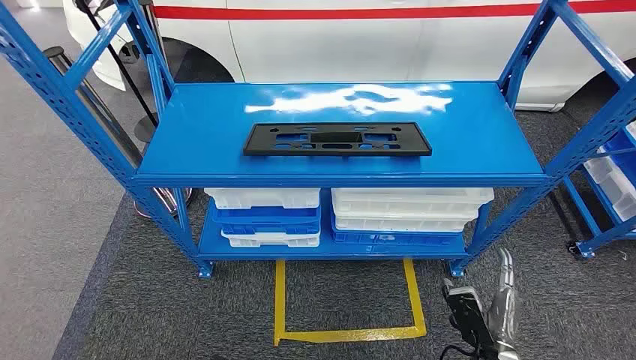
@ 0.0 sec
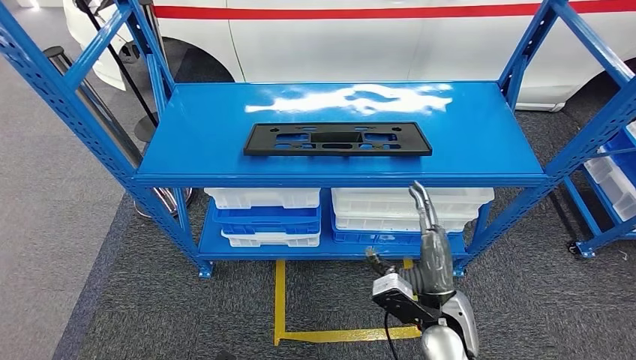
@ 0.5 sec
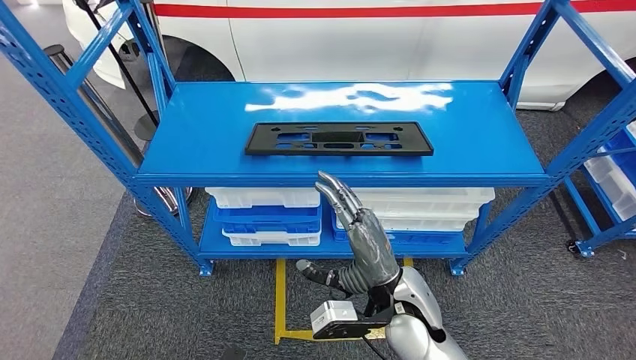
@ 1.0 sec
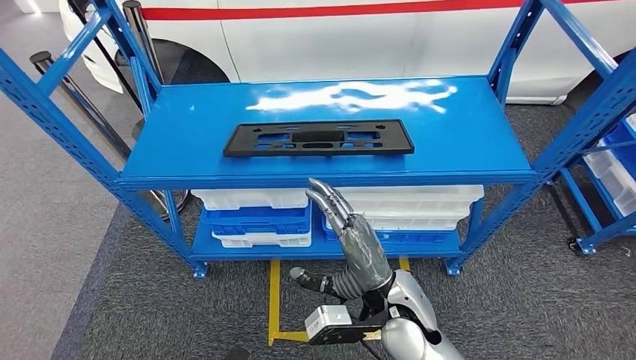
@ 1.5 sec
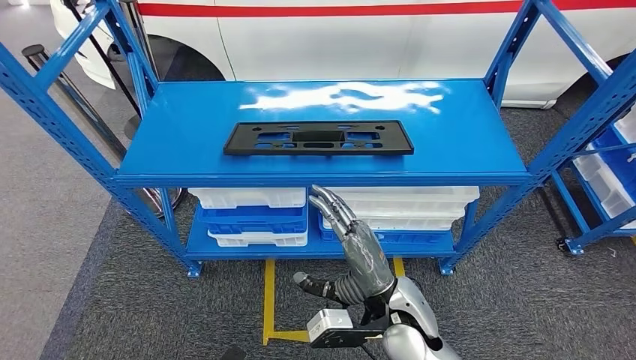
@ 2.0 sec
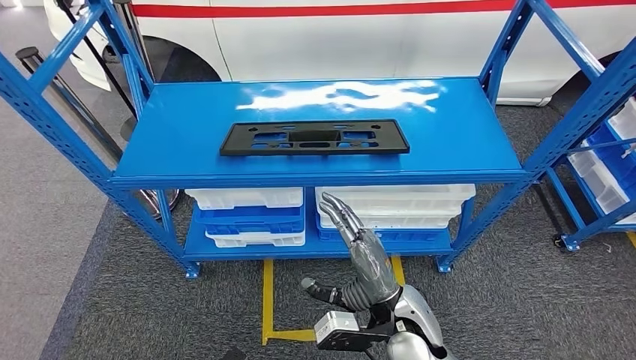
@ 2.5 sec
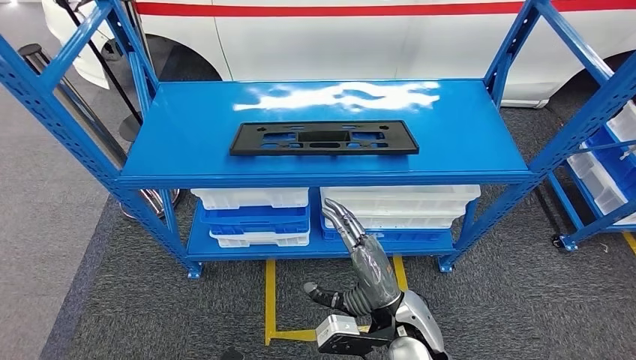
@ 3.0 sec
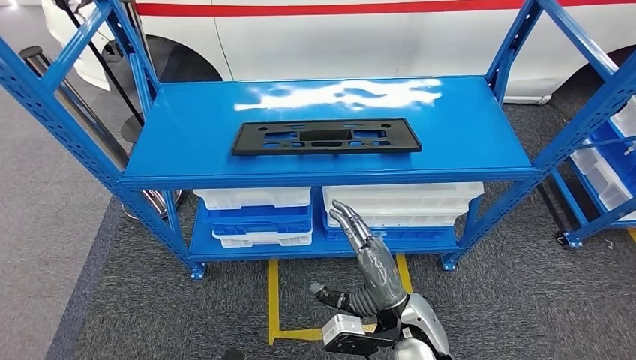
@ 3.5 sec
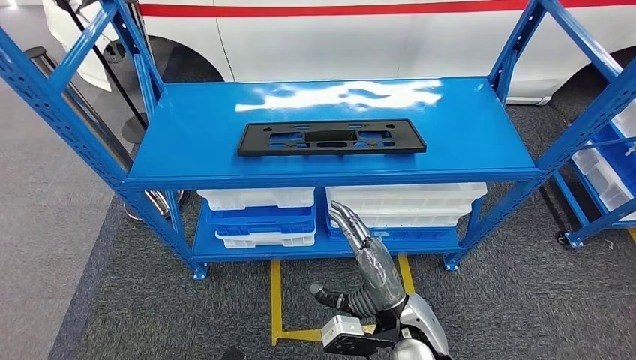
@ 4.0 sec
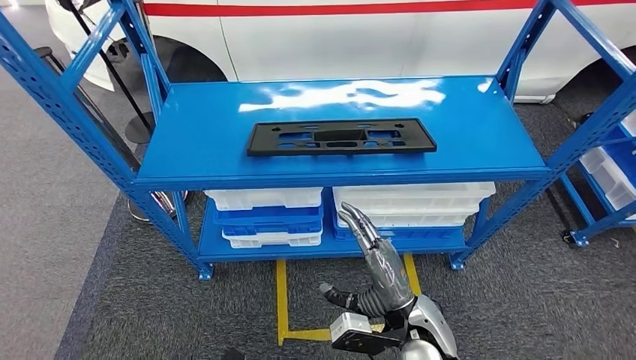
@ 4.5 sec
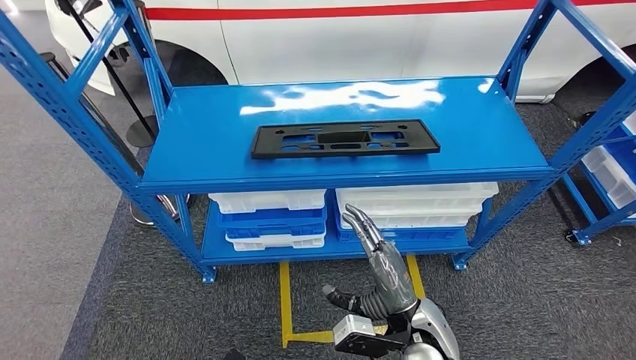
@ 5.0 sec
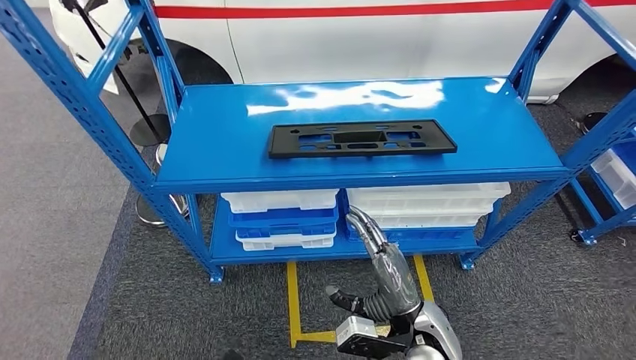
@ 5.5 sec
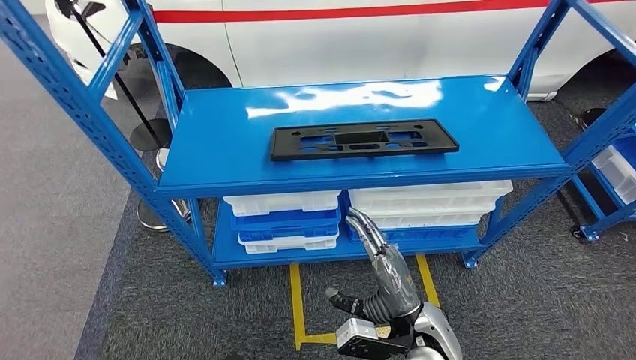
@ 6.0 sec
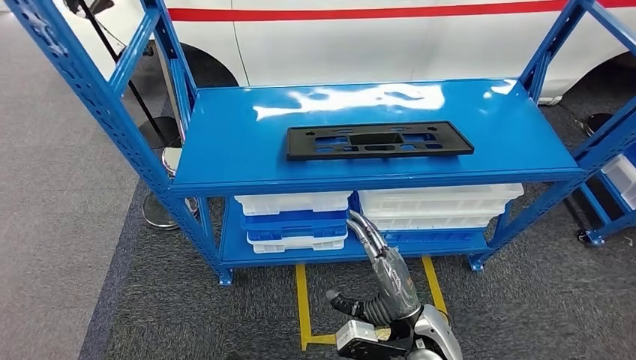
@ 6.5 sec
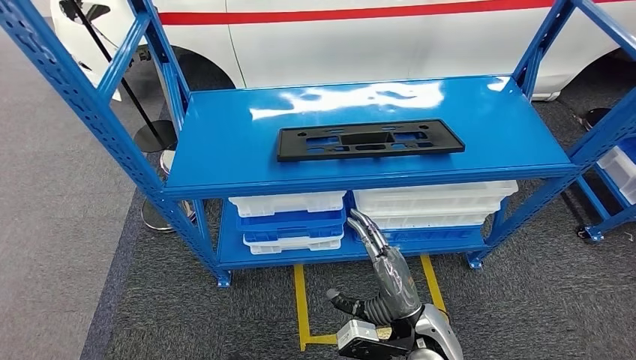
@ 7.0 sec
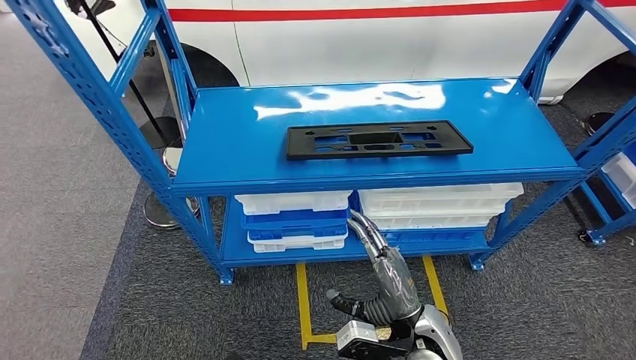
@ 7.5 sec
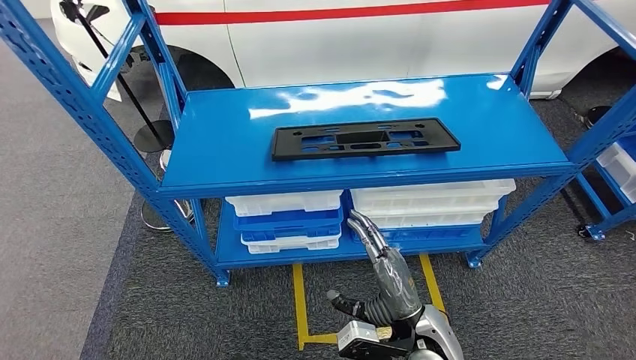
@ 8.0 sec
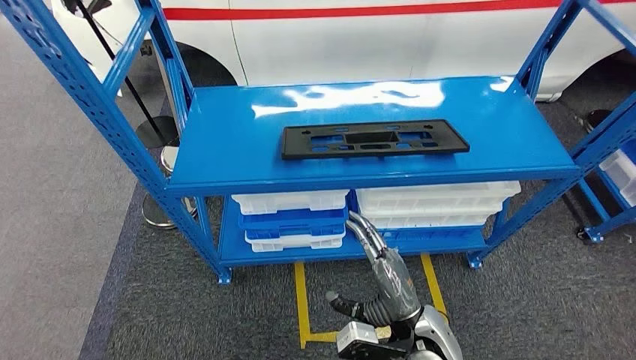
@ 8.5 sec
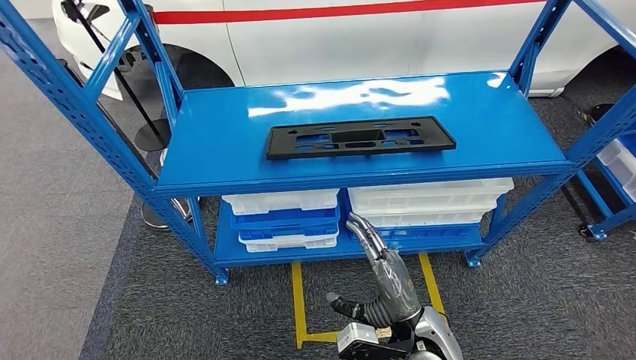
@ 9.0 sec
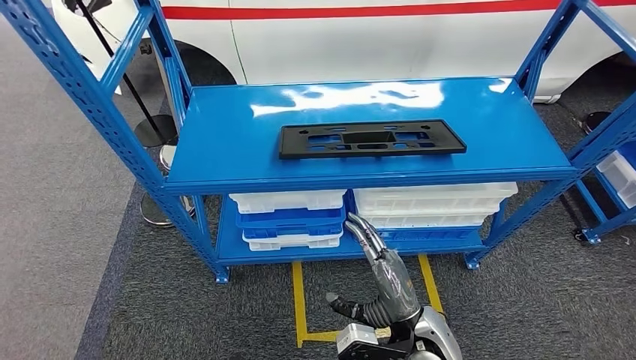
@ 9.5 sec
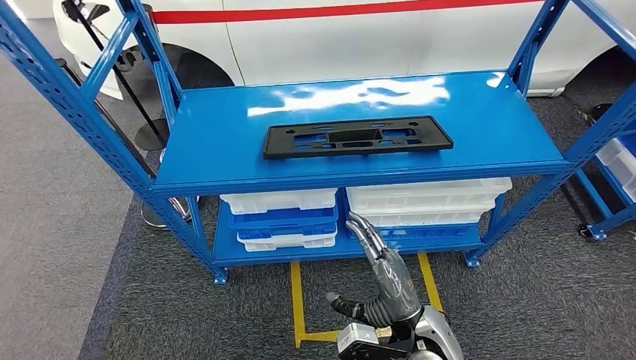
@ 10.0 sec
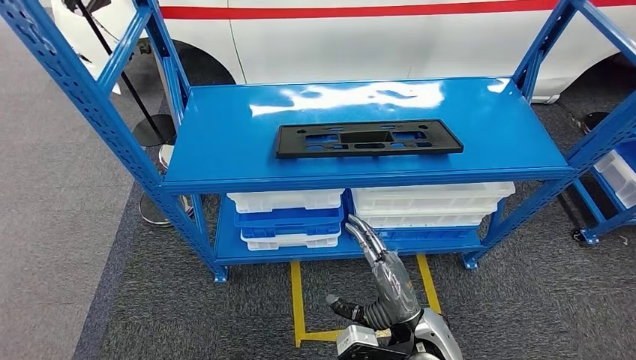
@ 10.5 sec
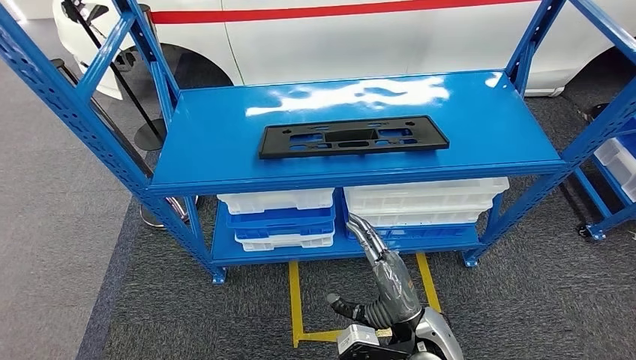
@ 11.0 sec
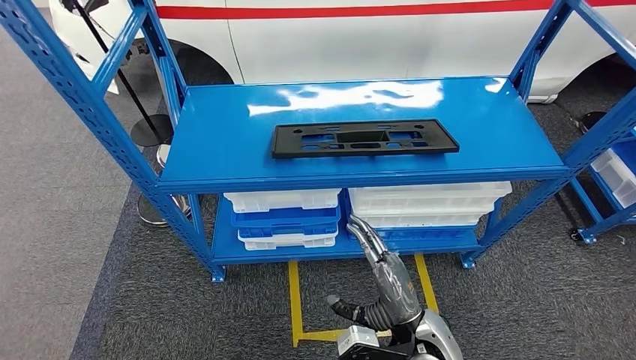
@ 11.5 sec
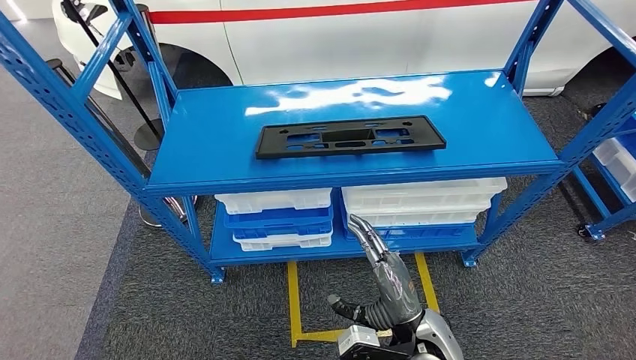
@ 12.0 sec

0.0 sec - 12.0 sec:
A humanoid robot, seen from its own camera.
2.0 sec - 4.0 sec: The hands move only a little.
6.0 sec - 10.0 sec: Both hands stay put.
10.0 sec - 12.0 sec: Both hands stay put.

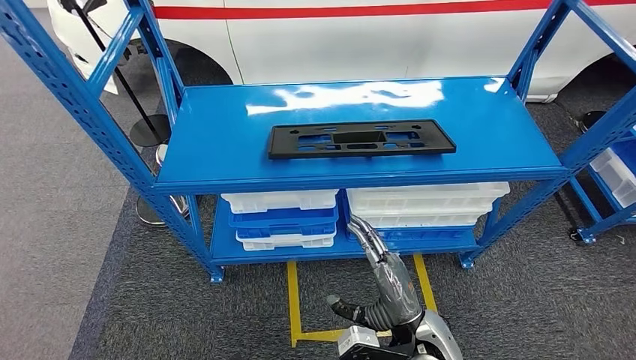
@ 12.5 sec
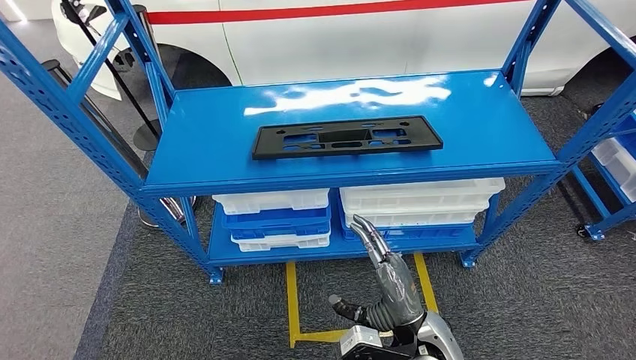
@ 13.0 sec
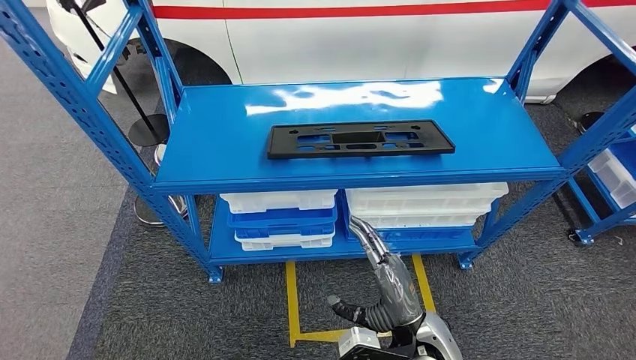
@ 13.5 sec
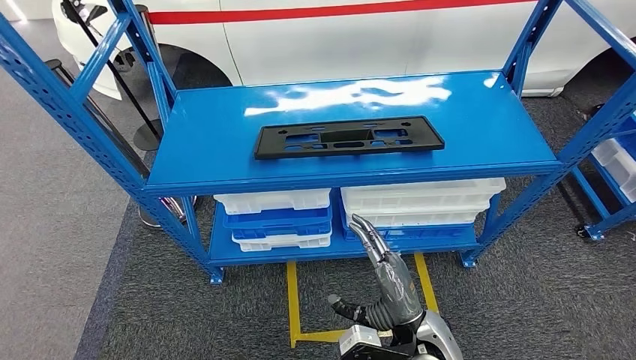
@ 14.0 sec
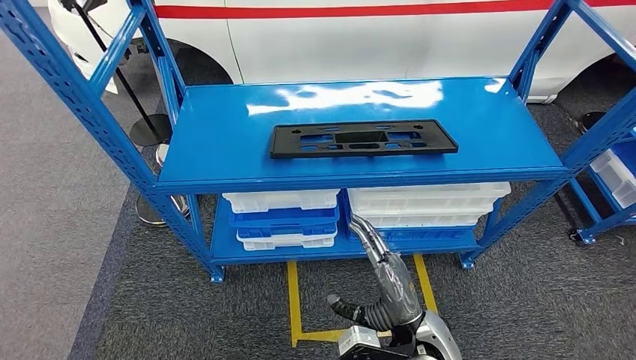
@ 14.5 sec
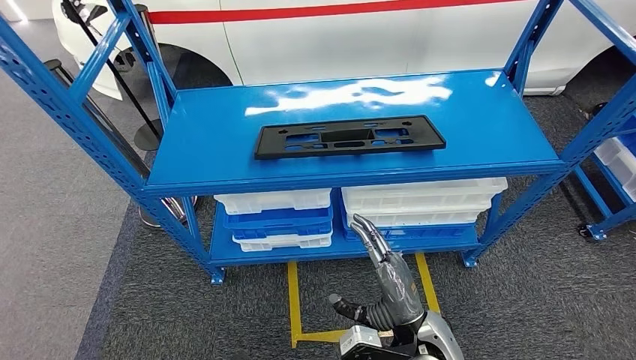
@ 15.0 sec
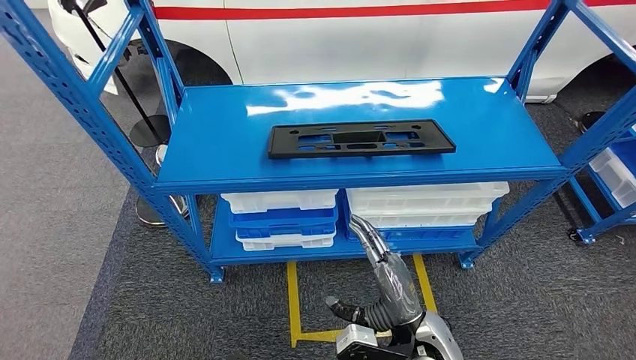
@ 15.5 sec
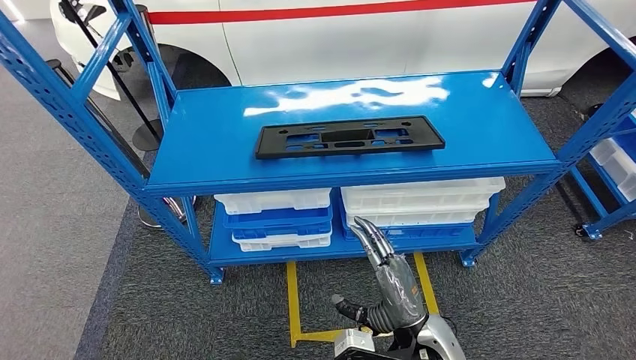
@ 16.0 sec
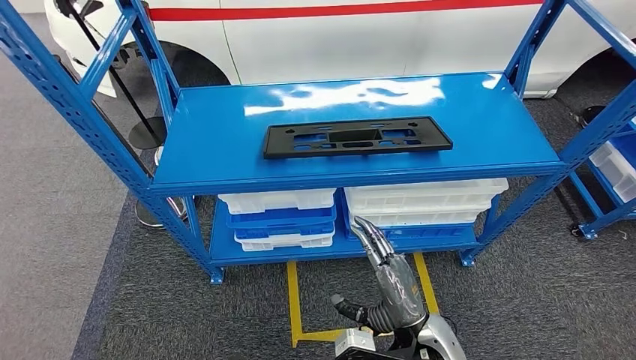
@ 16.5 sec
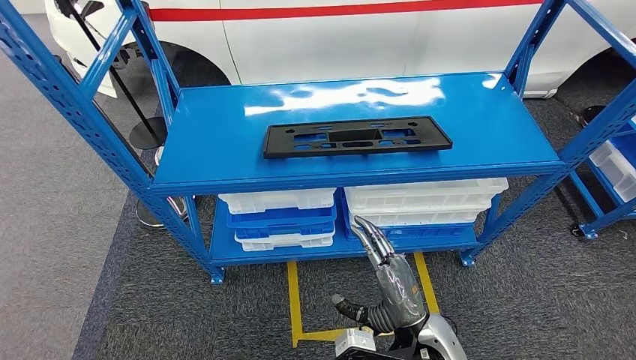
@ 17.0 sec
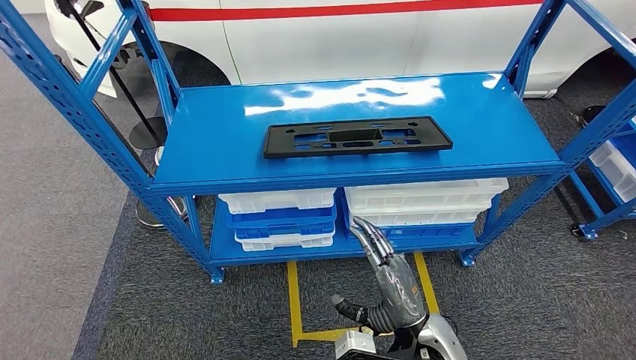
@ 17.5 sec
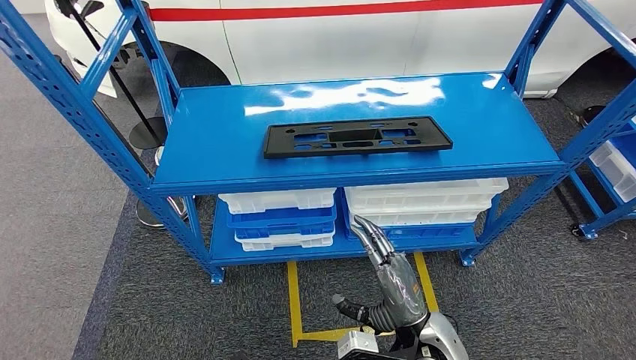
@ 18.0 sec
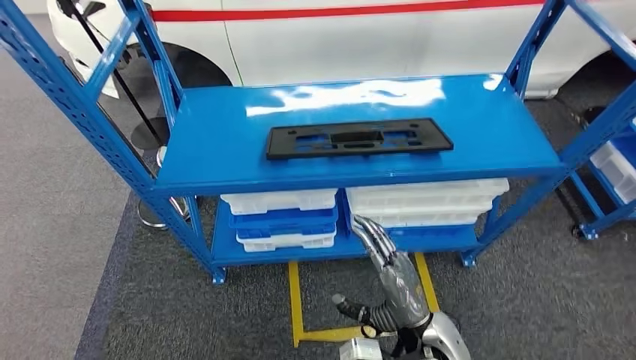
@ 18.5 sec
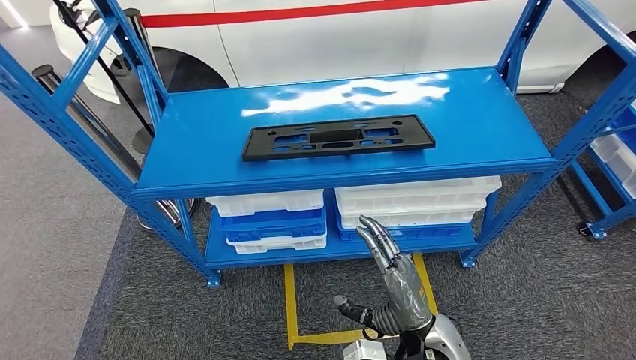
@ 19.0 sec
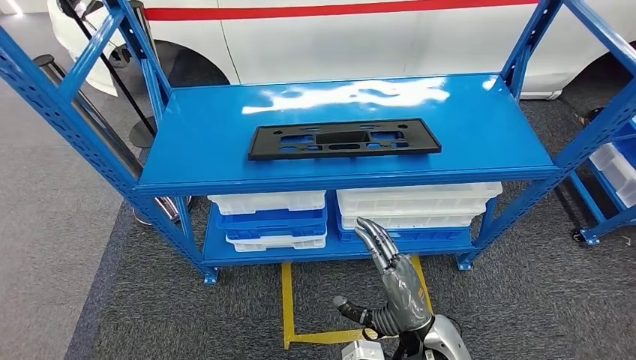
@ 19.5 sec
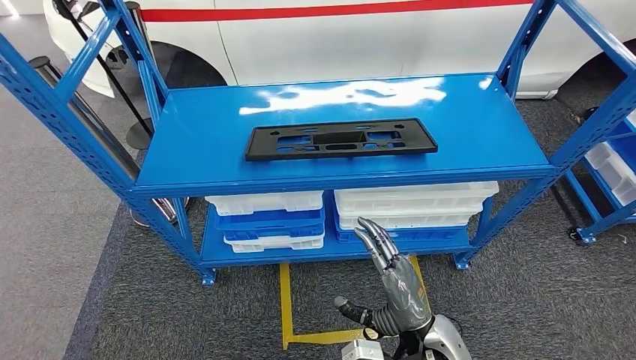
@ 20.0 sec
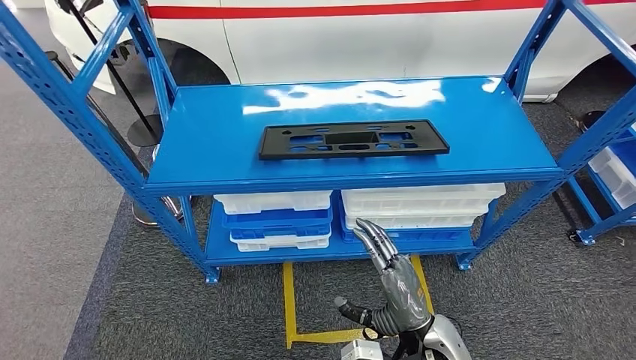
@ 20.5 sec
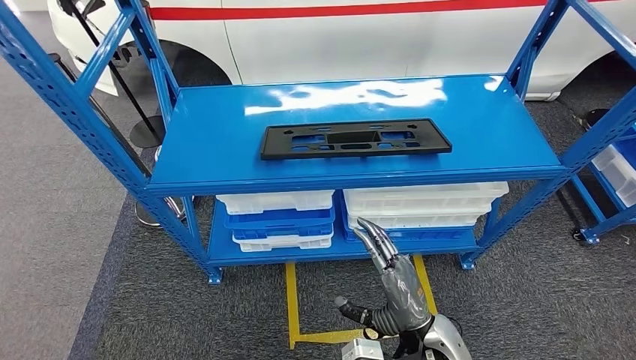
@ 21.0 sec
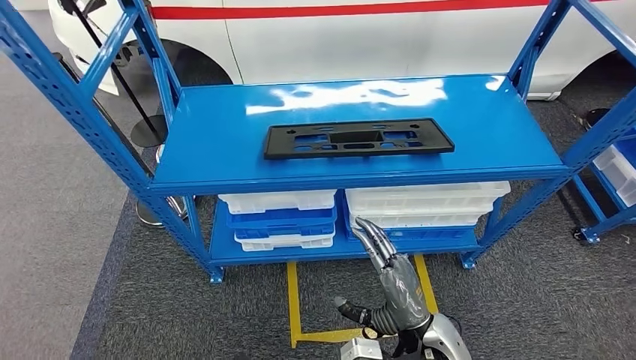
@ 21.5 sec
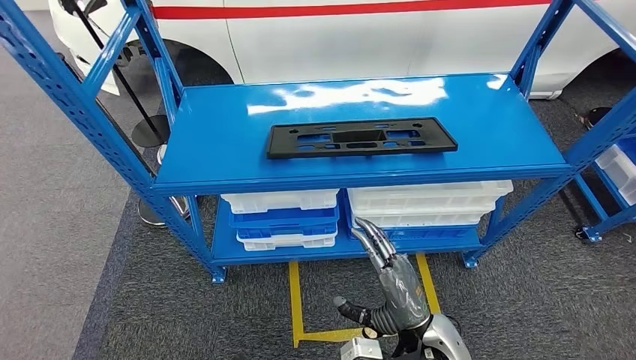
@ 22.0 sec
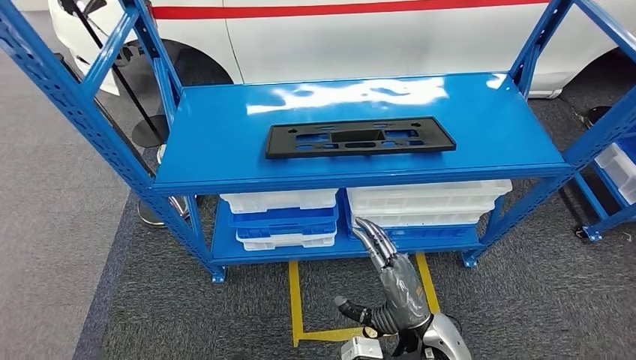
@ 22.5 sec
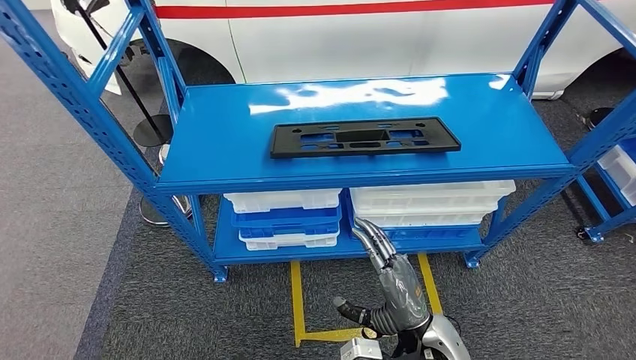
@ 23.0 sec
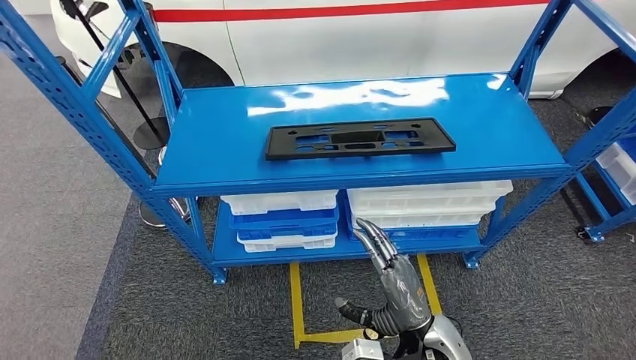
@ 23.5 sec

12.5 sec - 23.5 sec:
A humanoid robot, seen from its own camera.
12.5 sec - 14.5 sec: Neither hand changes place.
16.0 sec - 18.0 sec: Neither hand changes place.
20.0 sec - 23.5 sec: The two hands keep their place.
